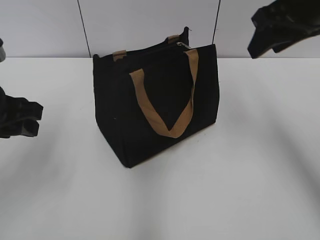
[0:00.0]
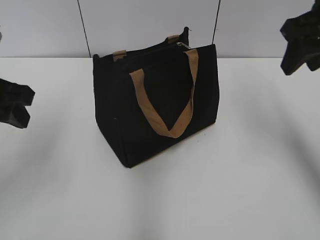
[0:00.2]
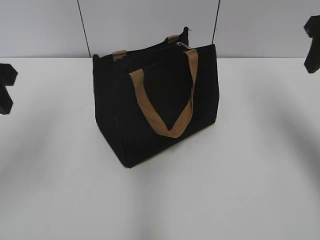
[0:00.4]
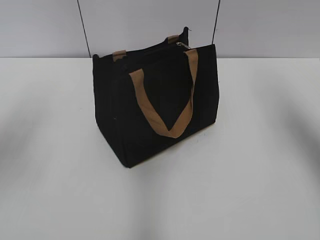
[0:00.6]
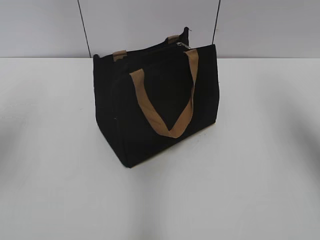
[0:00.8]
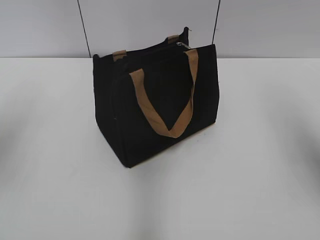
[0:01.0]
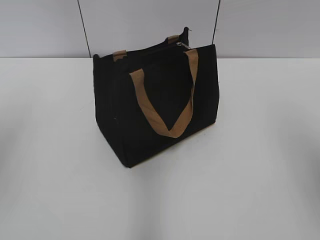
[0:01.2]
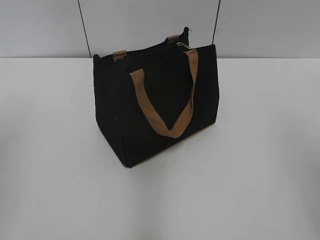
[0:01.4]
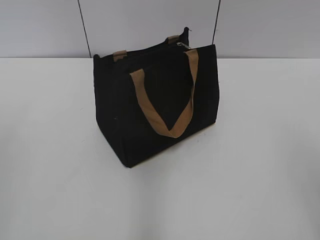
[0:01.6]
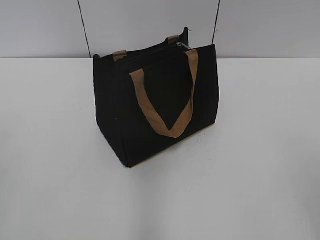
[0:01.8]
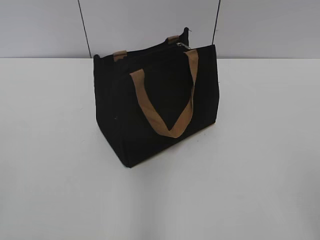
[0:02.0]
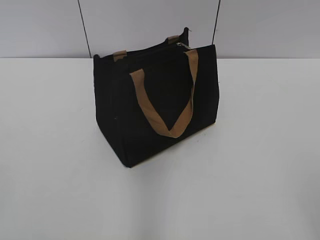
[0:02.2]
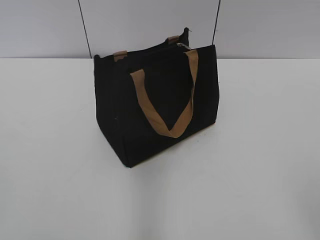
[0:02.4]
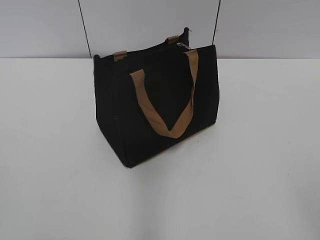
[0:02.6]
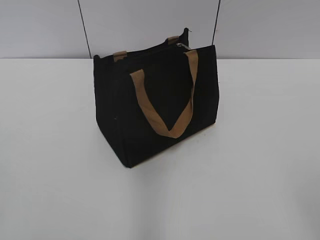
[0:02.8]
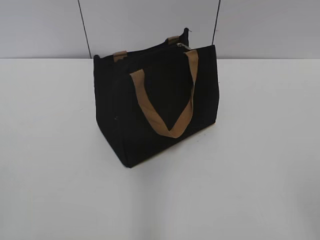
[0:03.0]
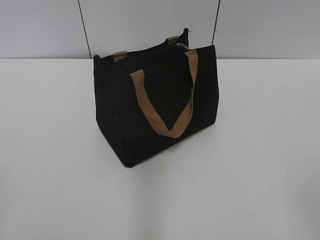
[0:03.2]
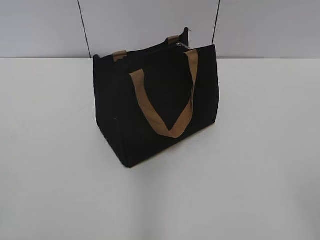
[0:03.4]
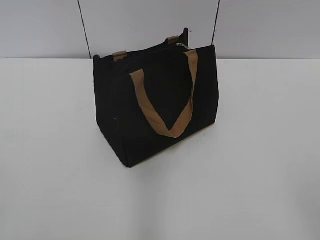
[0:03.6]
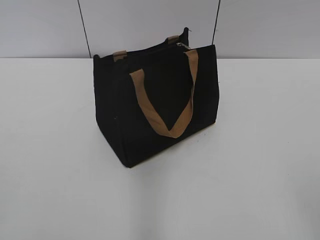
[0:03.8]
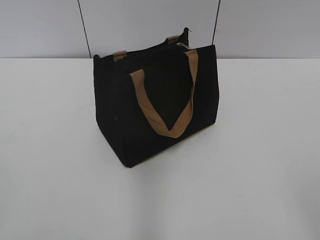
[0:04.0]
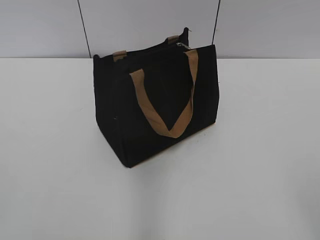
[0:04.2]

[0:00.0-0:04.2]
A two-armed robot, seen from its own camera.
0:00.0 to 0:01.4: The right gripper moves backward, roughly 20 cm. Meanwhile the left gripper is displaced upward, to the left and backward by roughly 15 cm.
0:02.8 to 0:04.2: Both grippers stay put.
